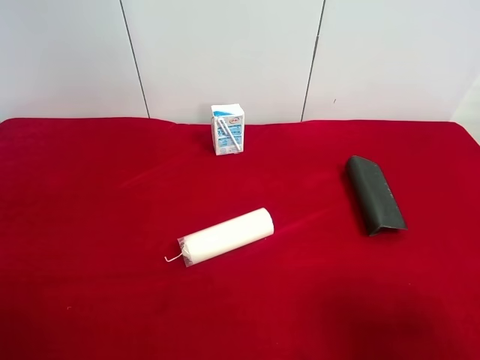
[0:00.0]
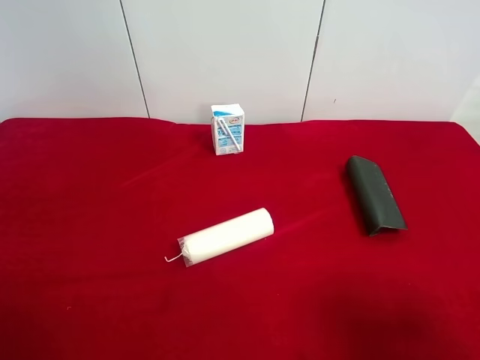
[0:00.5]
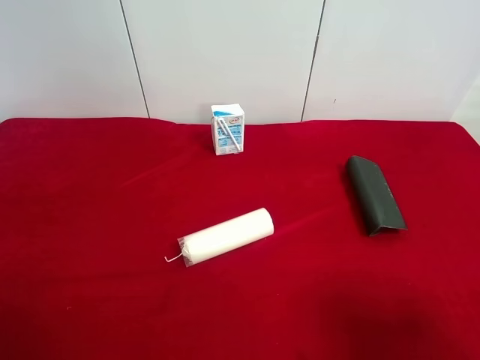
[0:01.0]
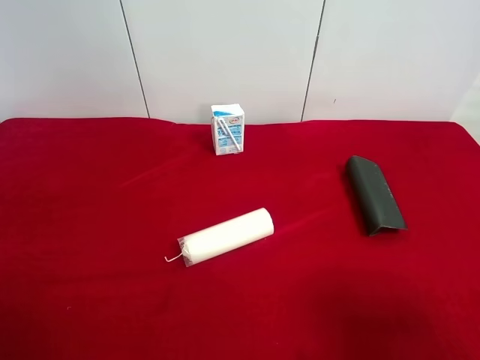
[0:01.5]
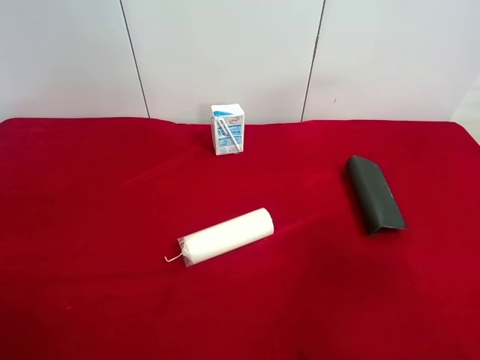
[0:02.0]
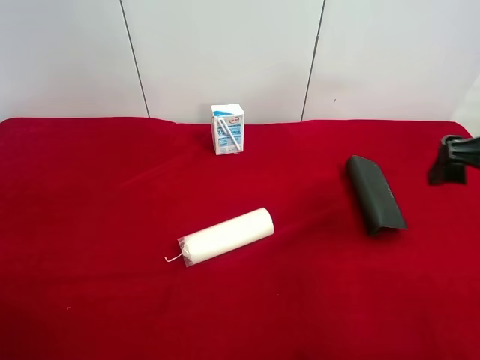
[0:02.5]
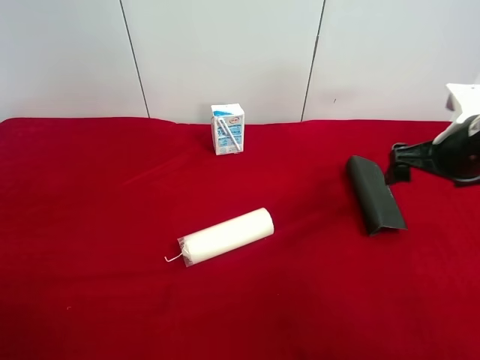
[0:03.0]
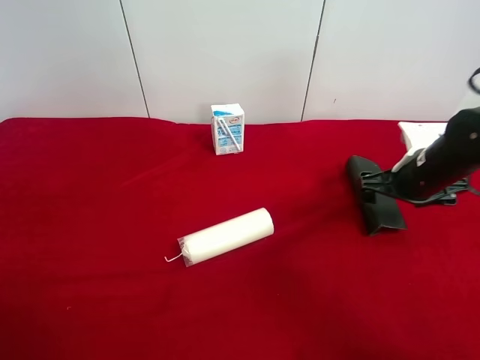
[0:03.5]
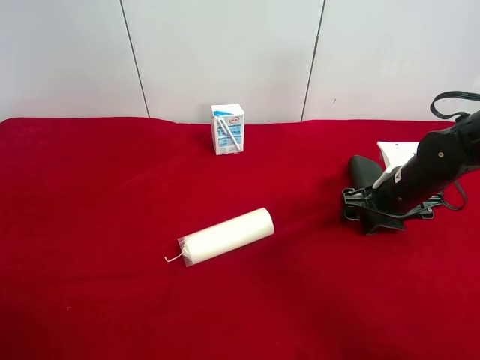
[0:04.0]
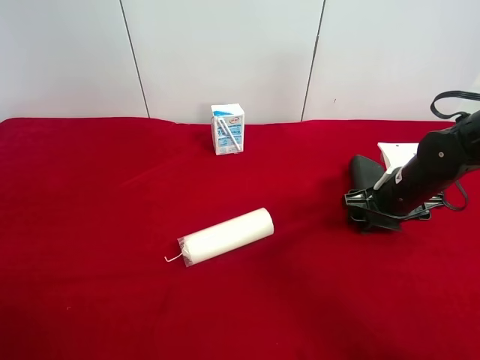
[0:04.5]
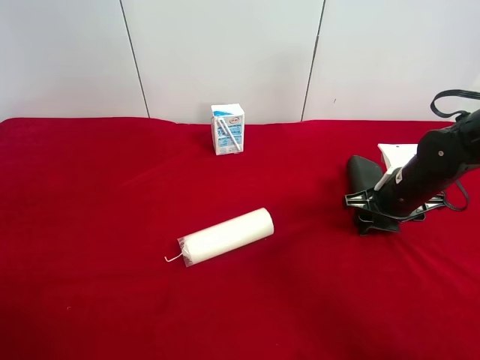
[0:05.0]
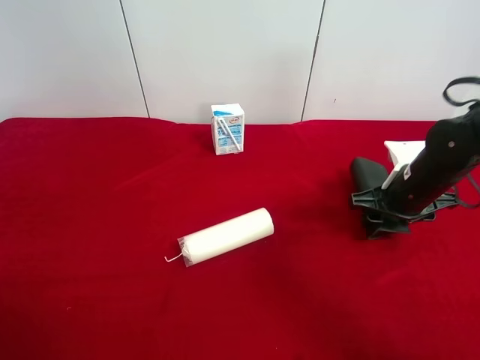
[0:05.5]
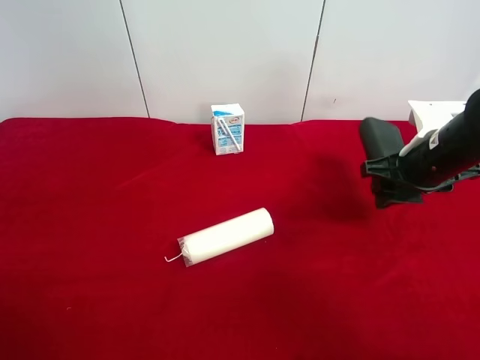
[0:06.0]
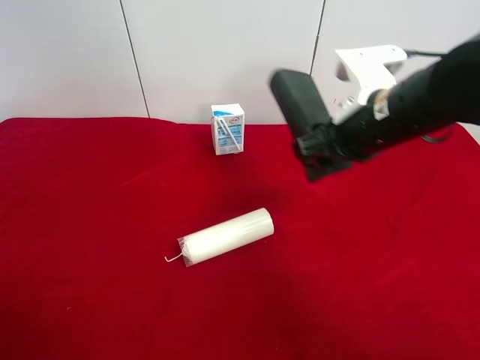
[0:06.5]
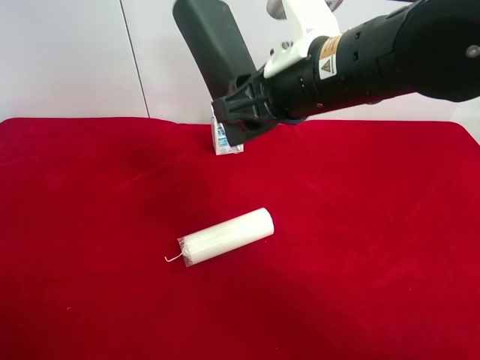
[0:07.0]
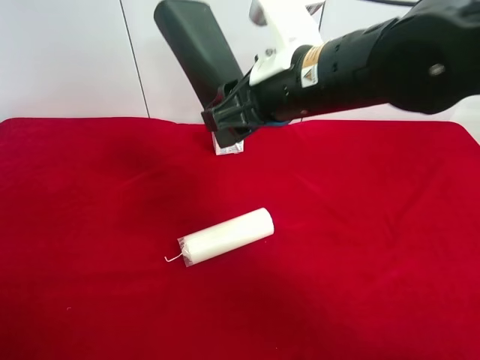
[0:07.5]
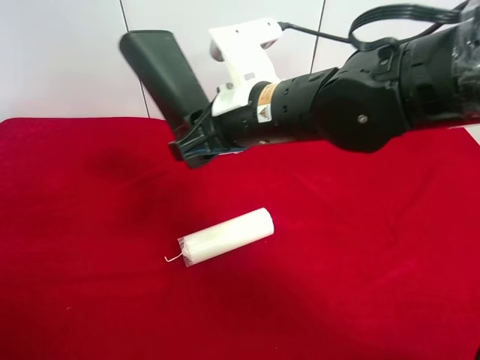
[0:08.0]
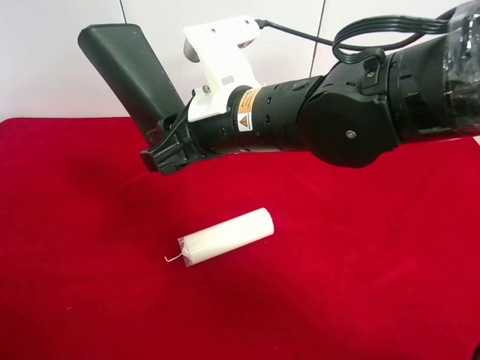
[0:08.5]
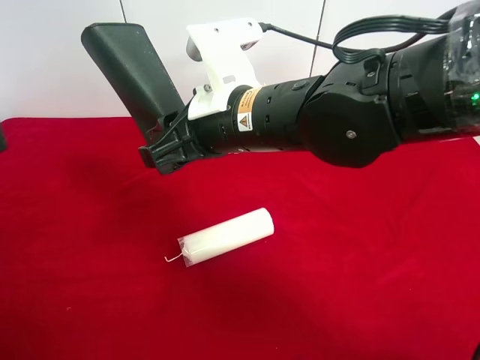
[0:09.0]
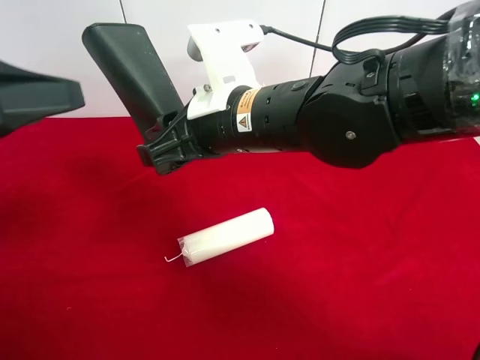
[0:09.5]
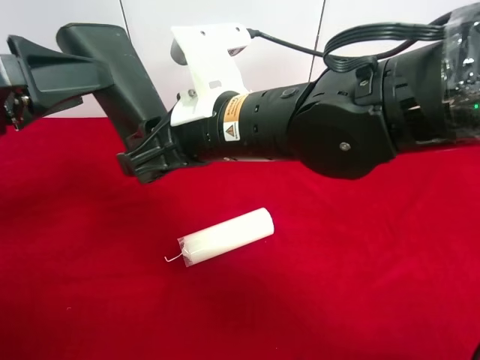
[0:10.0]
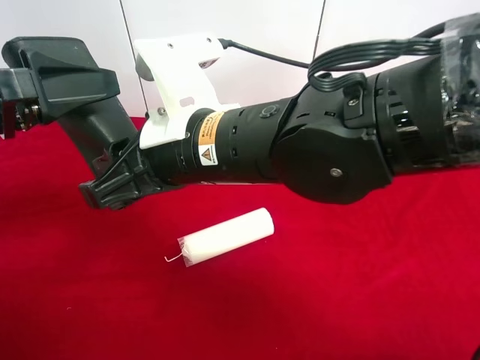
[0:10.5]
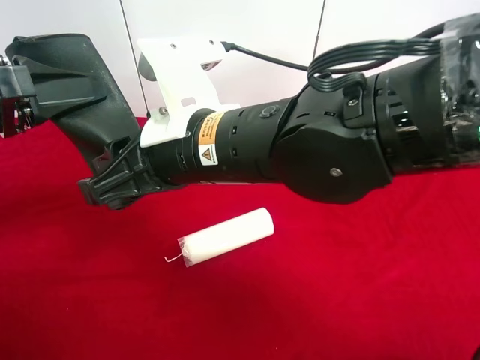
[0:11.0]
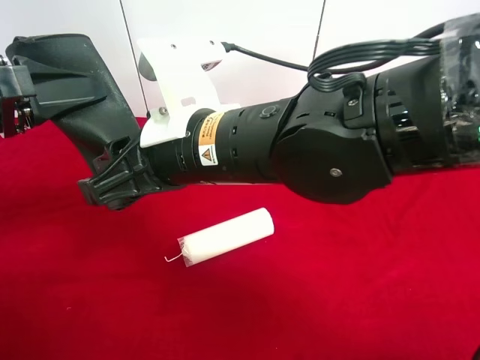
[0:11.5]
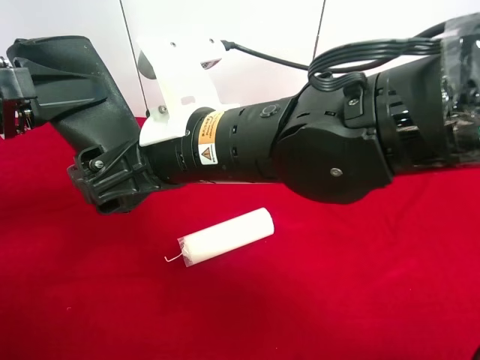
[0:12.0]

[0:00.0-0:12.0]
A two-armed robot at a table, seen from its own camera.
Task of the whole recording: use the right gripper to pick up the item and transfer it from the right gripper to the left gripper.
Step, 0:00.0 to 0:04.5: Use the right gripper to grab the eyeglass case on the right side of the table.
0:02.0 to 0:04.0: The right gripper travels downward and forward by roughly 30 cm.
0:04.0 to 0:06.0: The right gripper travels upward by approximately 10 cm, and closes up.
0:06.0 to 0:08.0: The right gripper moves to the left, approximately 25 cm.
0:08.0 to 0:10.0: The left gripper shifts about 20 cm forward.
0:10.0 to 0:12.0: The right gripper opens its fingers, while the left gripper closes up.

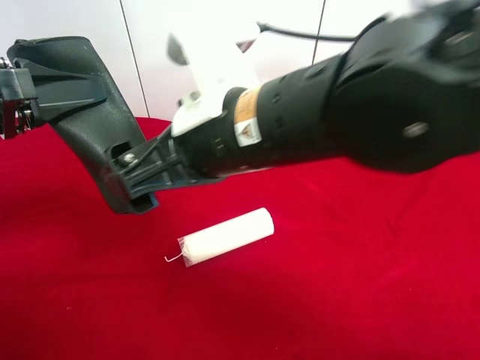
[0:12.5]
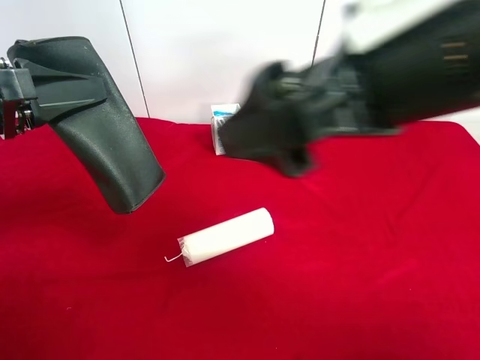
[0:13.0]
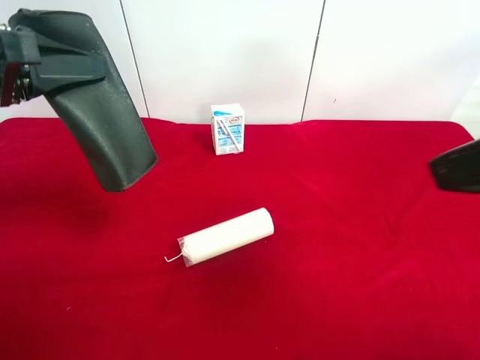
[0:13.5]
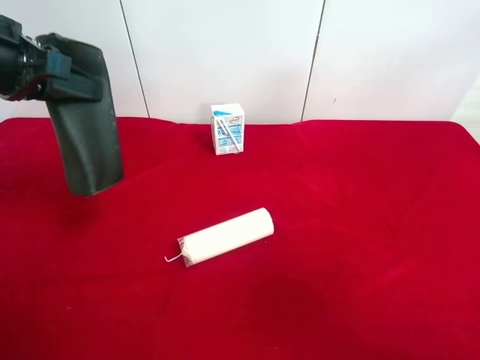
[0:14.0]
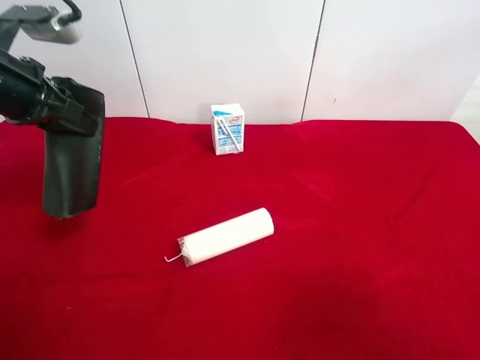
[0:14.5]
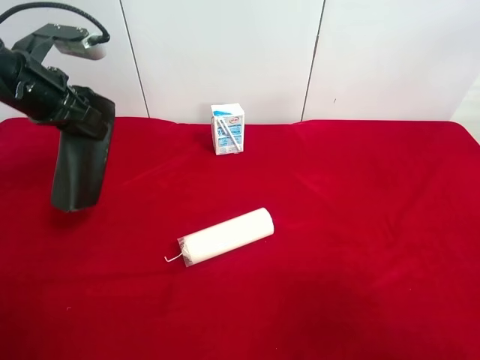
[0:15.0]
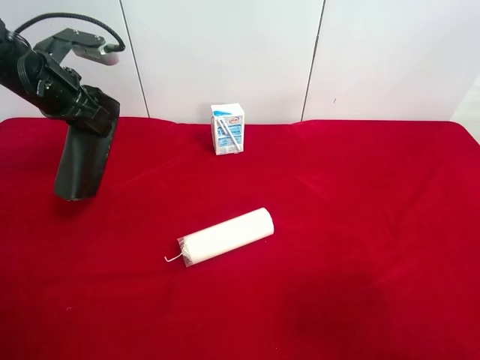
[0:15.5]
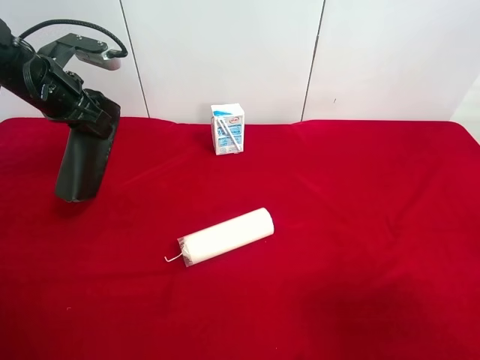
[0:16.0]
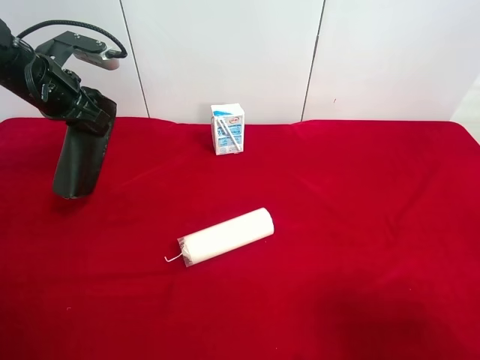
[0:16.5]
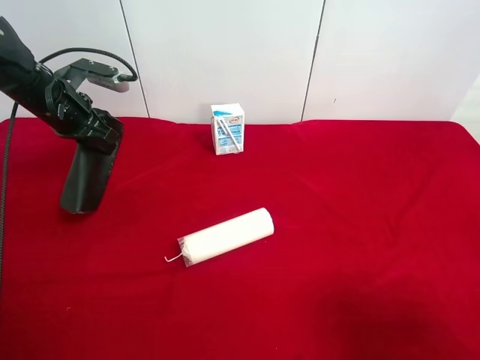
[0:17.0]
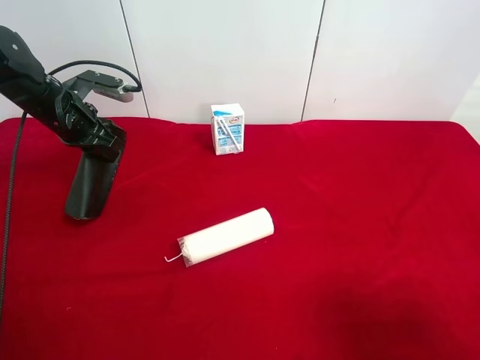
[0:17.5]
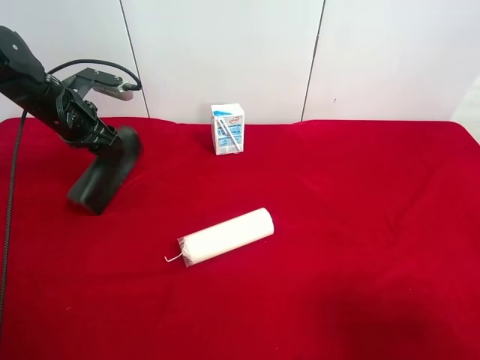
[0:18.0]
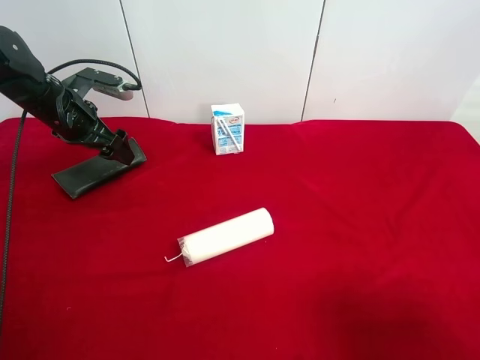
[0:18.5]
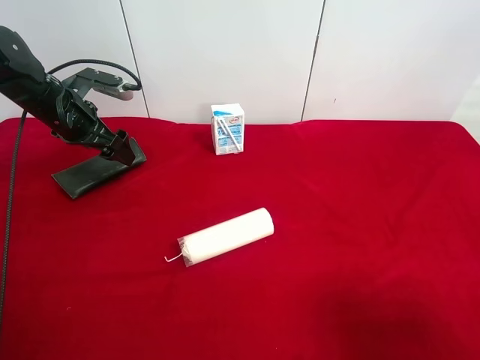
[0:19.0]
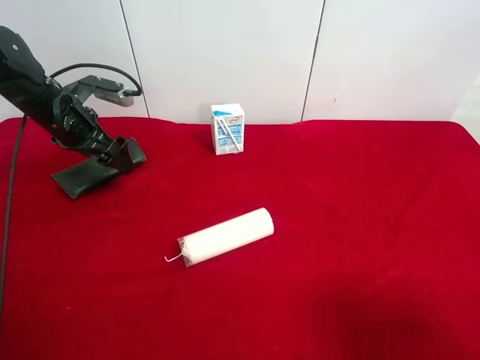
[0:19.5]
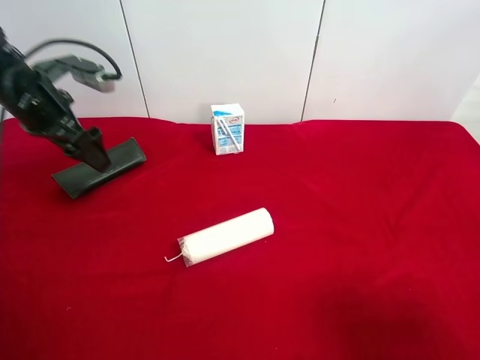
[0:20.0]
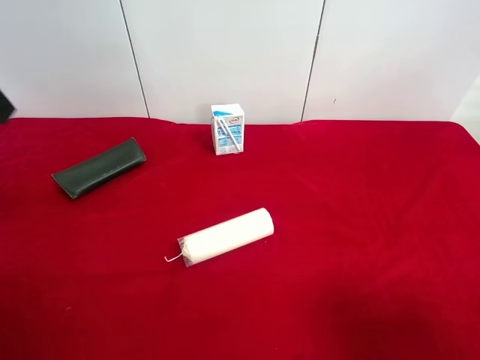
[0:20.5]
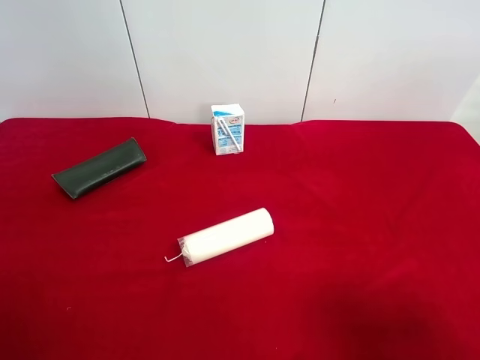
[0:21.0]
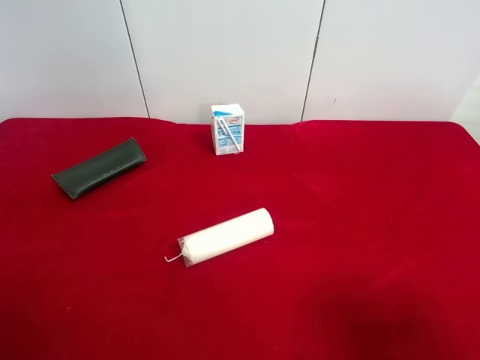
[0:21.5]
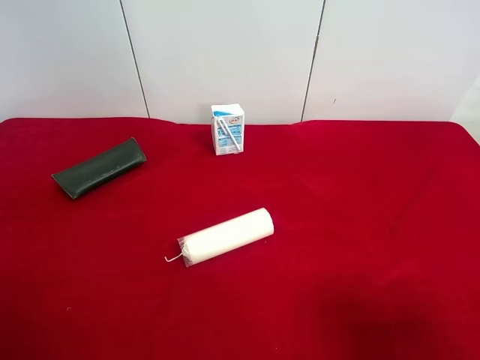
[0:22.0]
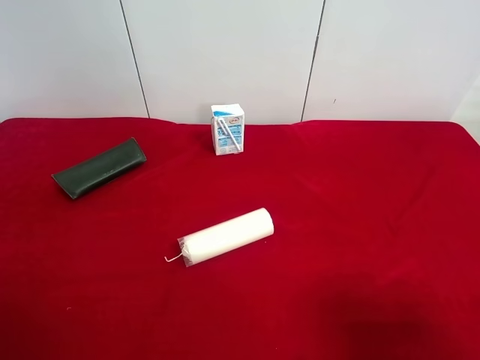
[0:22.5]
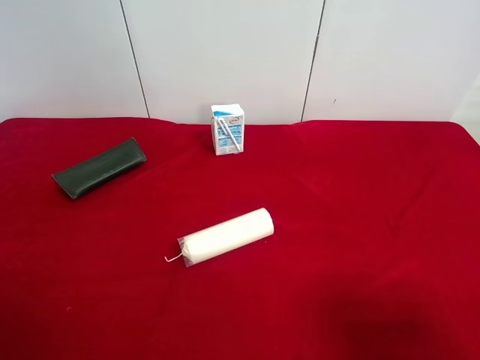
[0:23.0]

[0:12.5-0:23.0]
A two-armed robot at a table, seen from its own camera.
Task of the whole recording: use the right gripper to pick up the item and transfer it from the right gripper to the left gripper.
Step, 0:12.5 to 0:18.0: The left gripper places eyeglass case on the left side of the table.
0:12.5 to 0:14.5: The left gripper heads forward, covering about 10 cm, while the right gripper moves to the right and backward, some 30 cm.
0:14.5 to 0:16.5: The left gripper moves forward, roughly 10 cm.
0:16.5 to 0:19.0: The left gripper shifts roughly 5 cm downward, and opens up.
0:19.0 to 0:21.0: The left gripper travels backward and upward by about 35 cm.
